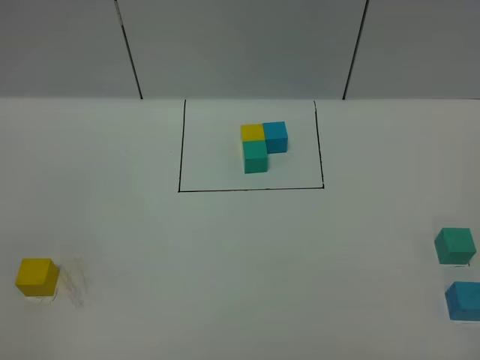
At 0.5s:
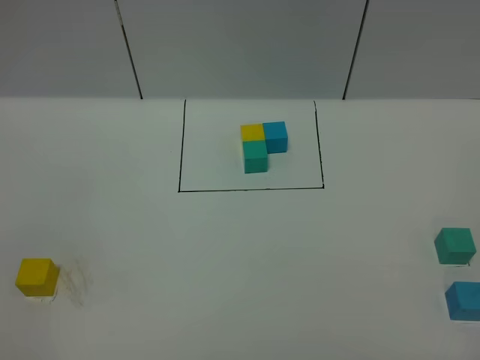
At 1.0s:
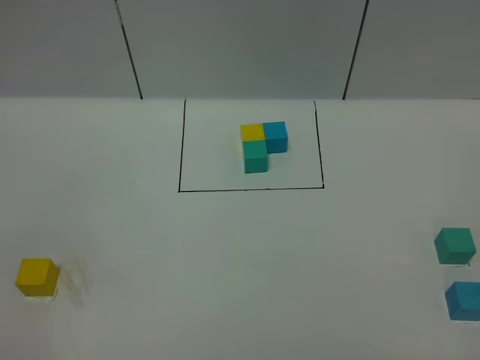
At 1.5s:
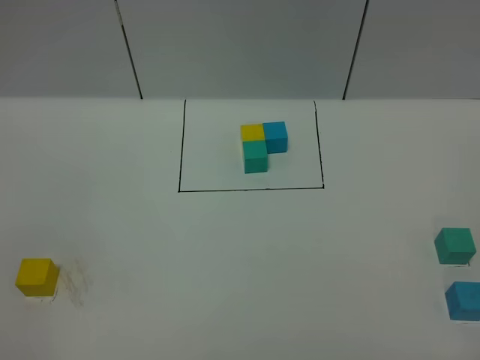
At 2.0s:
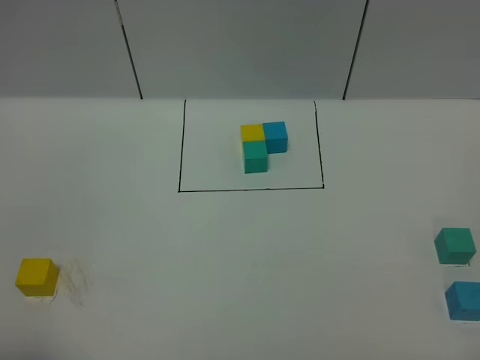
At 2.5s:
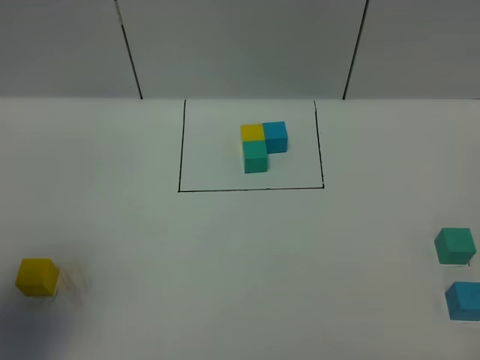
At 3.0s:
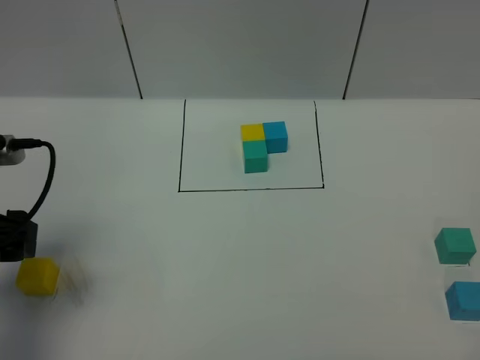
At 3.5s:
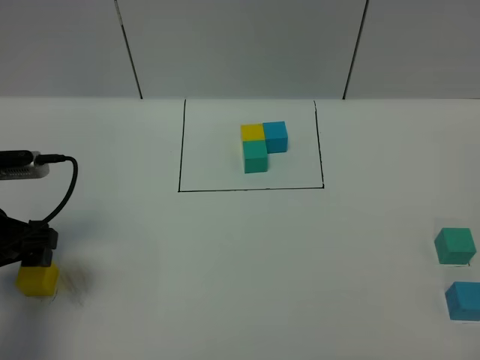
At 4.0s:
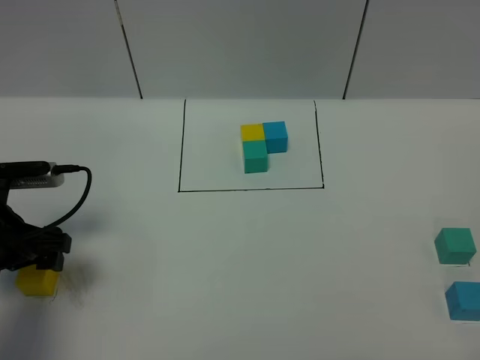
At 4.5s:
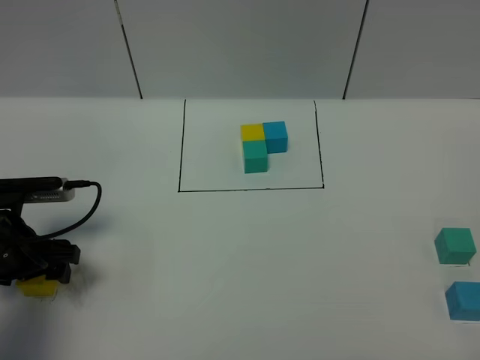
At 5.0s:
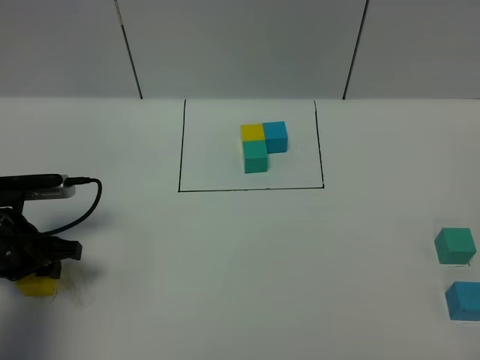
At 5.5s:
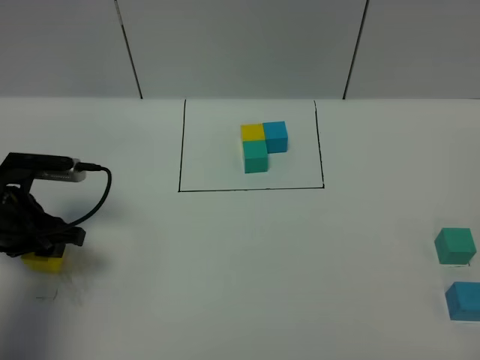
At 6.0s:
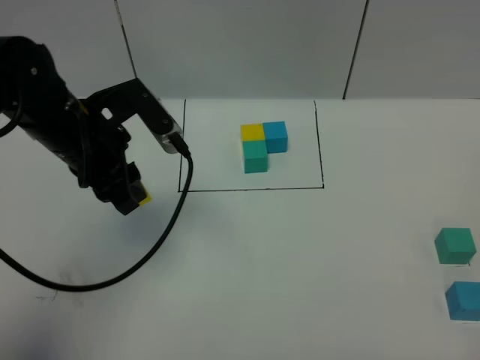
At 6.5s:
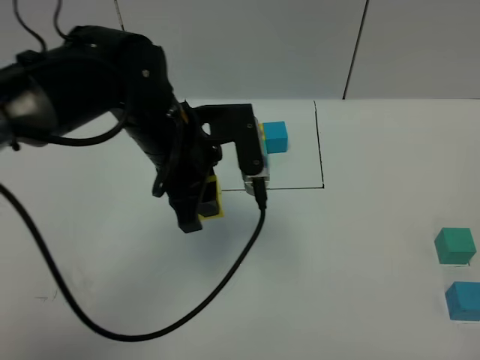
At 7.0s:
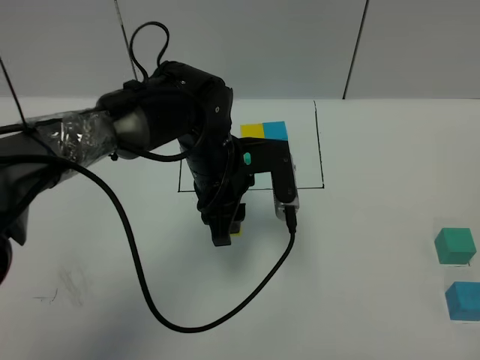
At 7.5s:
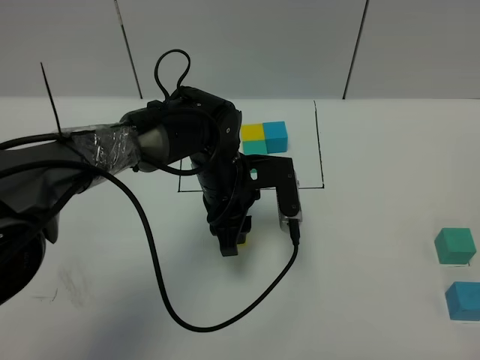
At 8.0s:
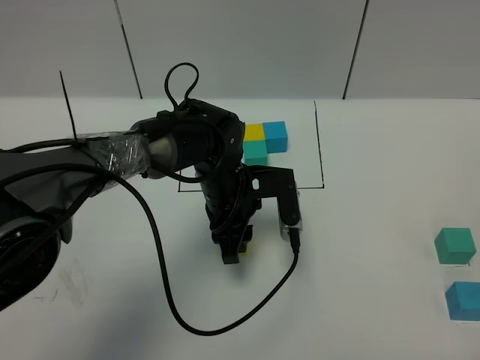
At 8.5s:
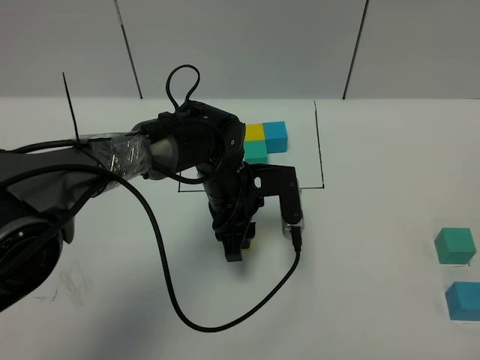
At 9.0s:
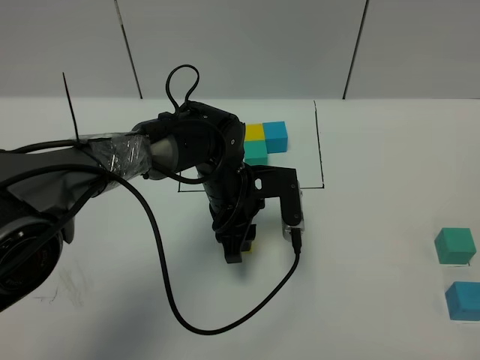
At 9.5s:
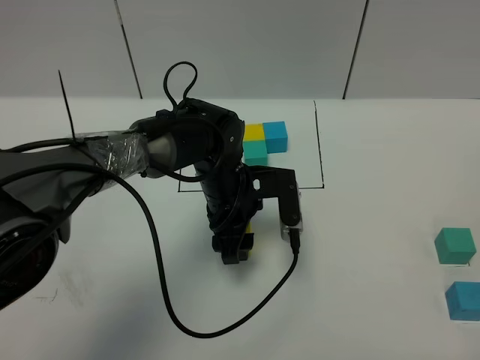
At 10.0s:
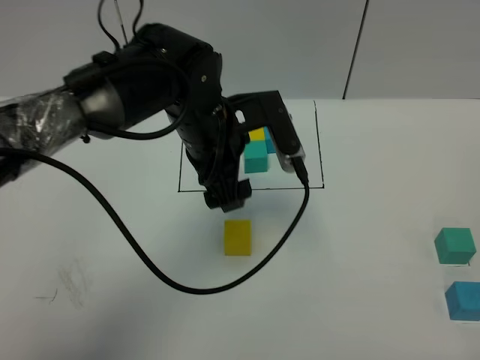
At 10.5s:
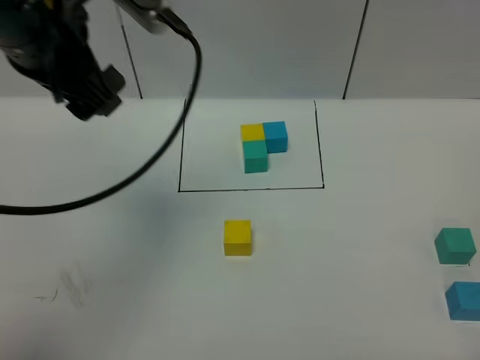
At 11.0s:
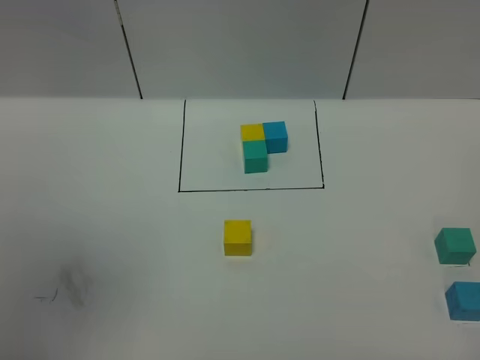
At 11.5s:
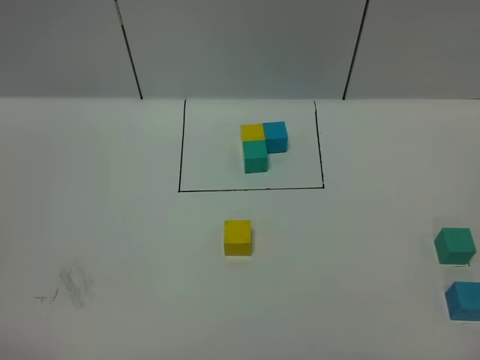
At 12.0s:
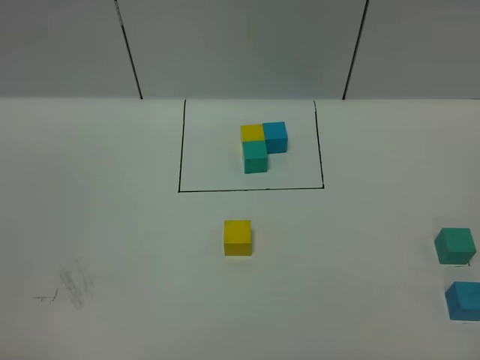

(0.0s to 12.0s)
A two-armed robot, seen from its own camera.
Task of the whole recording: According to the building block template in front, assemble the scattered blocks together.
Step, 2.5s - 9.5s: Put the yellow cube in the center of the table.
2.0s - 4.0s: The left gripper travels forward and downward by about 25 cm.
4.0s - 6.0s: The left gripper travels to the right, upward and forward by some 15 cm, and closes up.
6.0s - 8.0s: The left gripper shifts roughly 20 cm to the right and downward.
8.0s - 10.0s: The left gripper goes approximately 10 cm upward, and opens its fingers.
10.0s - 12.0s: The left gripper shifts approximately 50 cm backward and to the left.

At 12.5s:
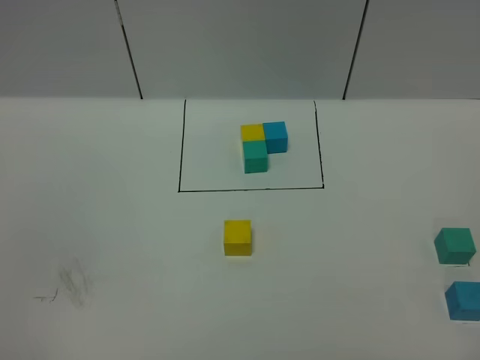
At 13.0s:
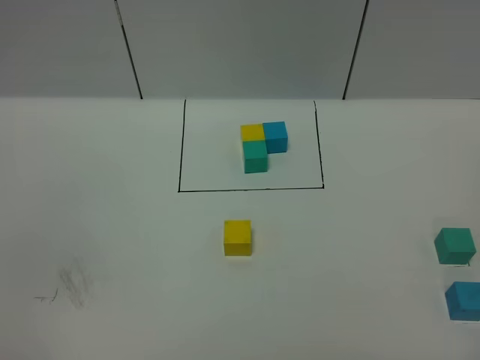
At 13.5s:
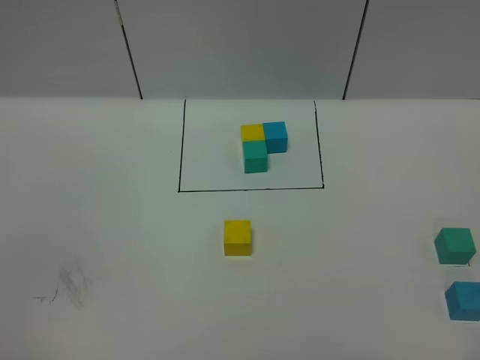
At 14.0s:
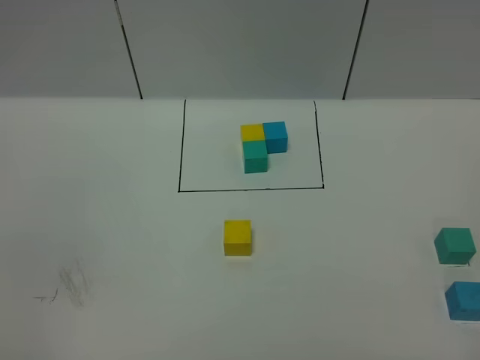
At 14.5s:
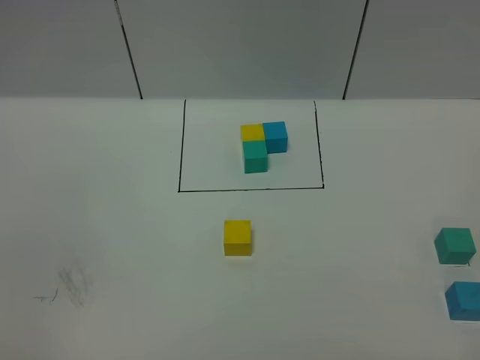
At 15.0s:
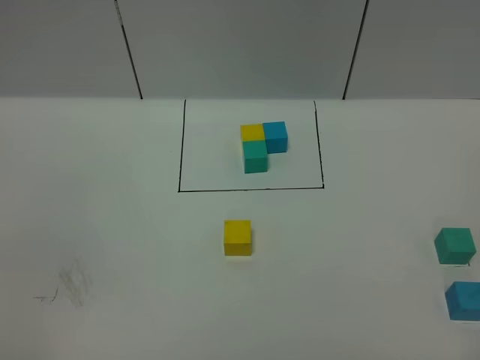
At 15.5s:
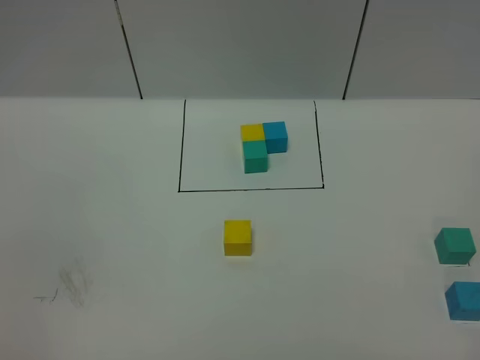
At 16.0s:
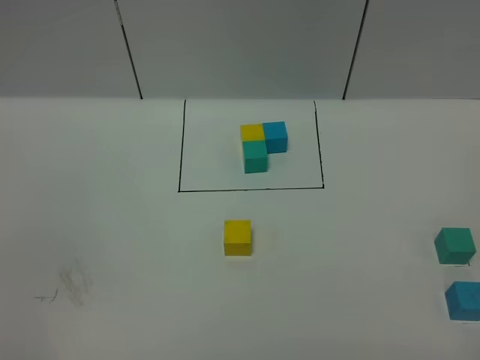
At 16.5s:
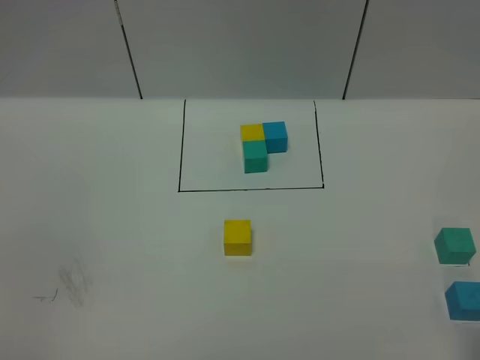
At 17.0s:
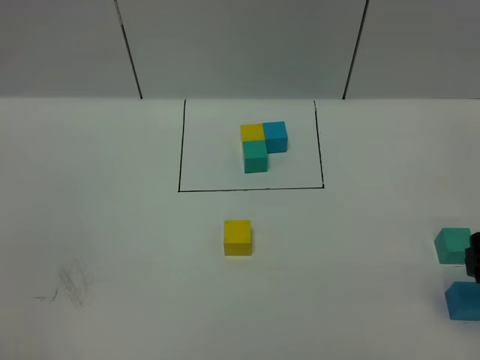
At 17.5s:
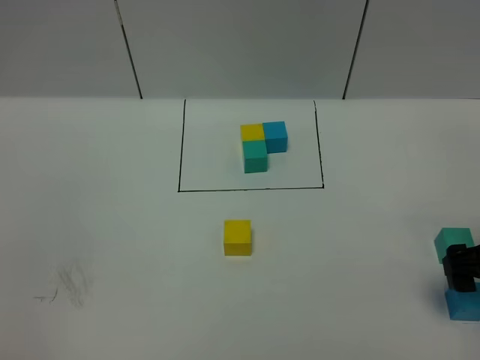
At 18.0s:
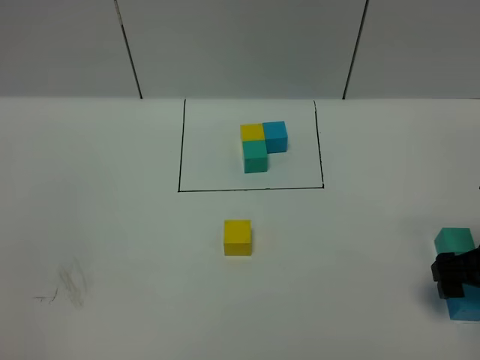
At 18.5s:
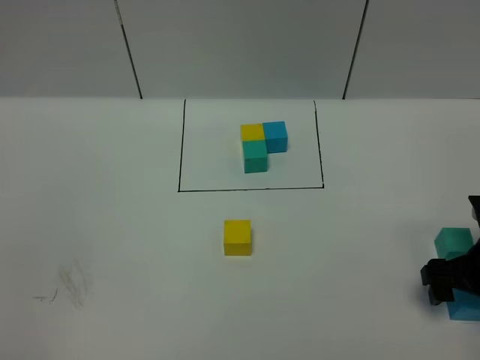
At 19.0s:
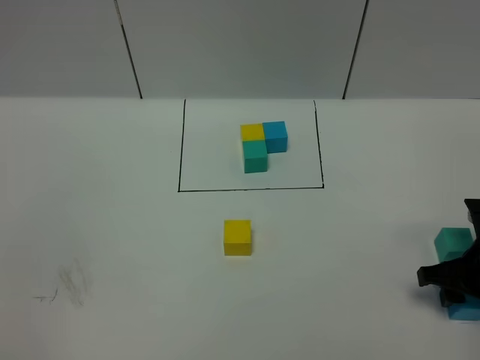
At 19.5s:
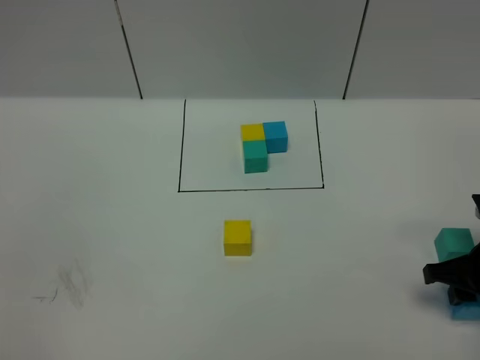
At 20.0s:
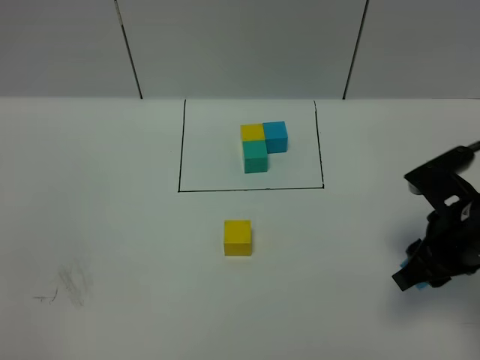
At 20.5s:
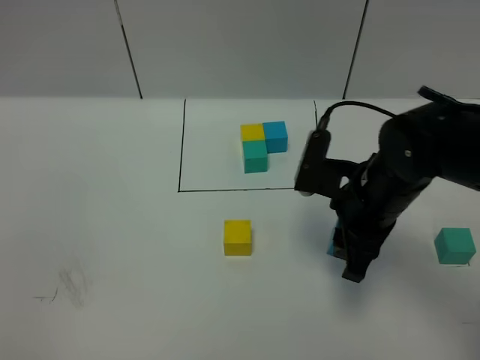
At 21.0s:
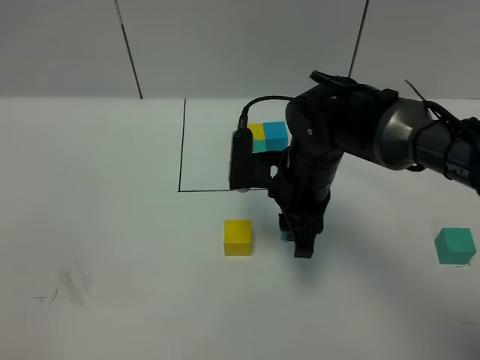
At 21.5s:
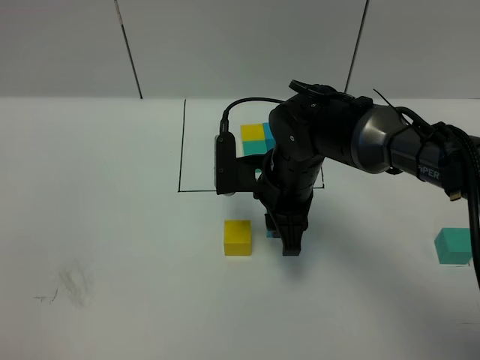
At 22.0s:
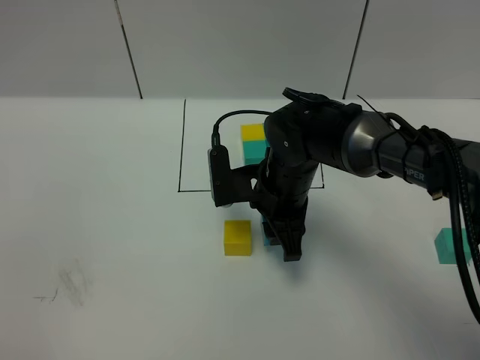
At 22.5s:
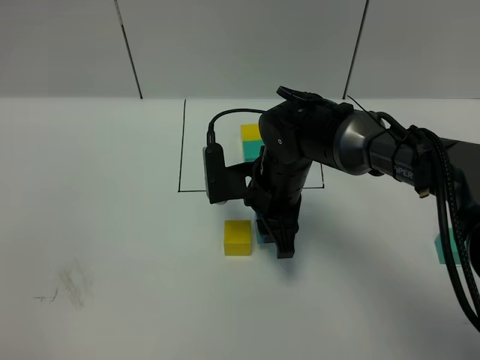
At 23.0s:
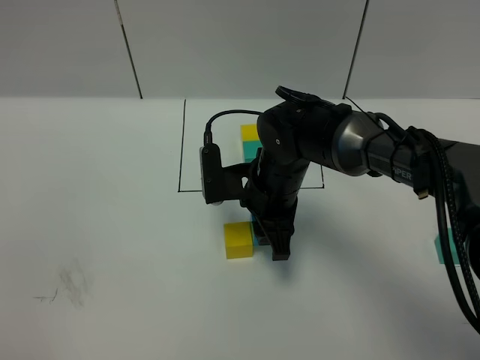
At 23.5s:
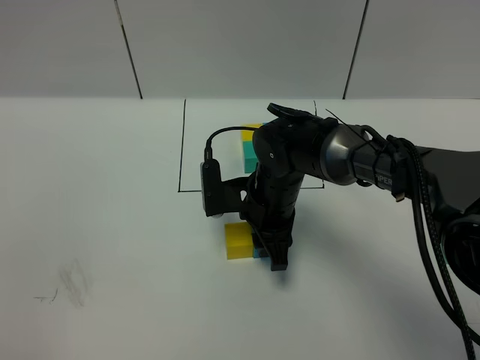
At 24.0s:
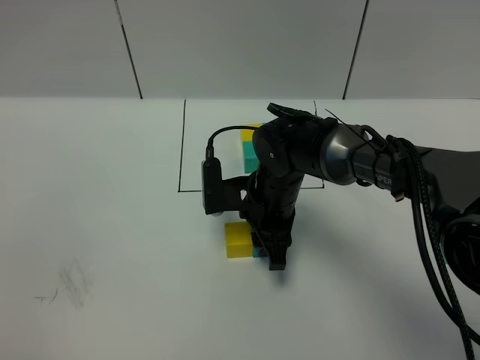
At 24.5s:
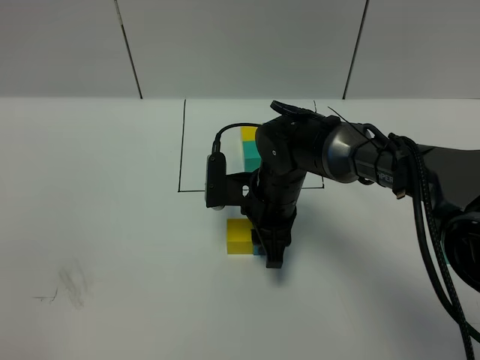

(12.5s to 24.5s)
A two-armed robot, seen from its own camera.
Task of the whole recording: According to the building block template in front, assemble the scattered blocks together.
16.5s - 18.5s: The right gripper is displaced downward and forward by approximately 25 cm.
18.5s - 20.5s: The right gripper goes approximately 15 cm to the left and upward, and closes its fingers.
20.5s - 22.5s: The right gripper shifts roughly 10 cm to the left and forward.
22.5s - 24.5s: The grippers move only a little.

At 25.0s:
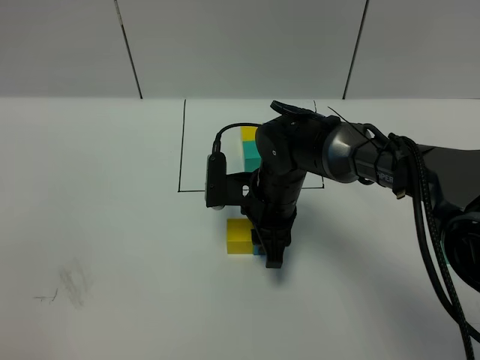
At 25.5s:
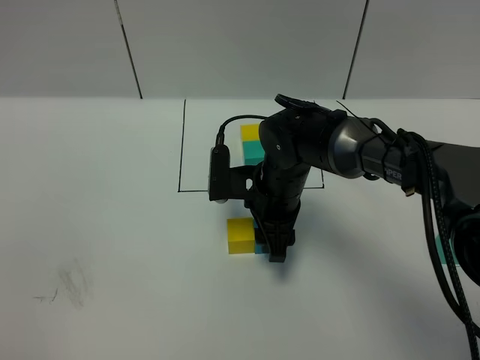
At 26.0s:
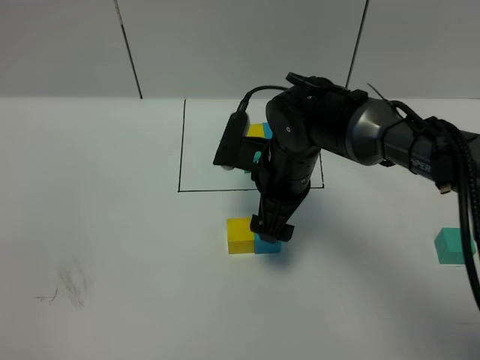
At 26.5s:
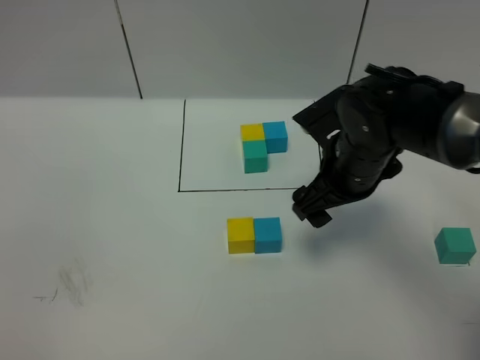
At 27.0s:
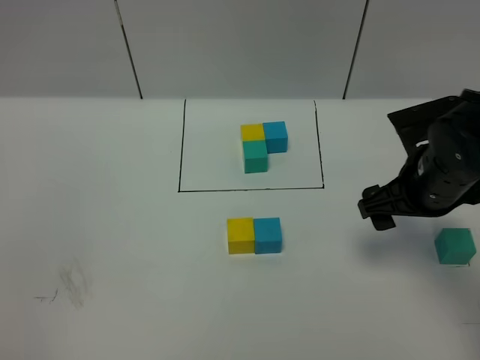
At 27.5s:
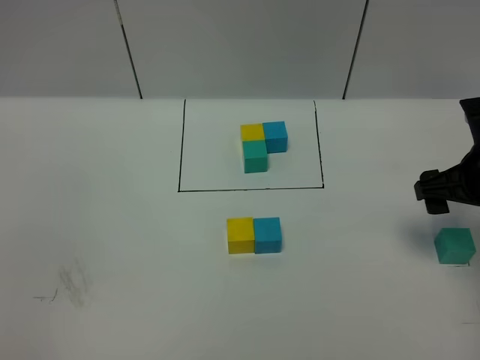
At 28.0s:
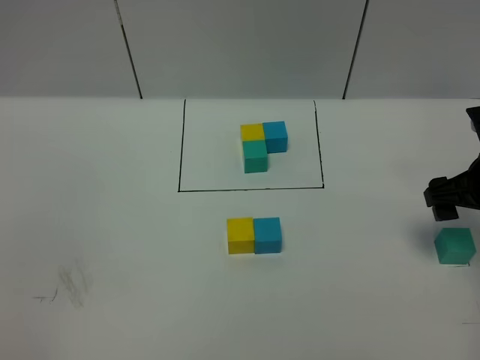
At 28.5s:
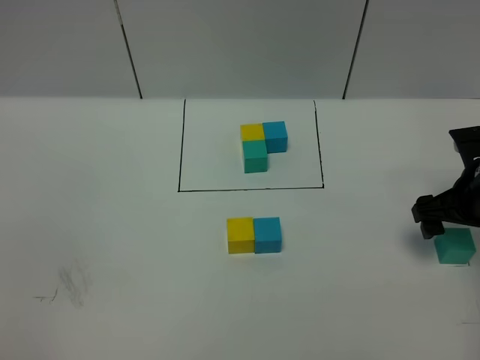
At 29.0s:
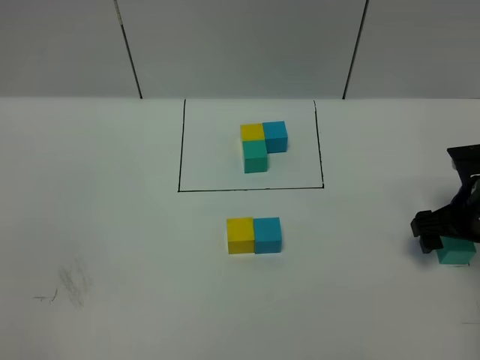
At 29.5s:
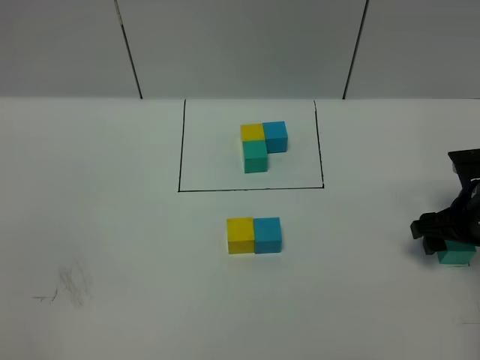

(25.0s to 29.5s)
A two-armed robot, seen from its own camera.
Task of the whole recording: According to the building block template in front, assemble the scattered blocks together.
25.0s - 27.0s: The right gripper is displaced to the right and upward by approximately 20 cm, and opens up.
27.0s - 29.5s: The right gripper moves to the right and downward, approximately 10 cm.
